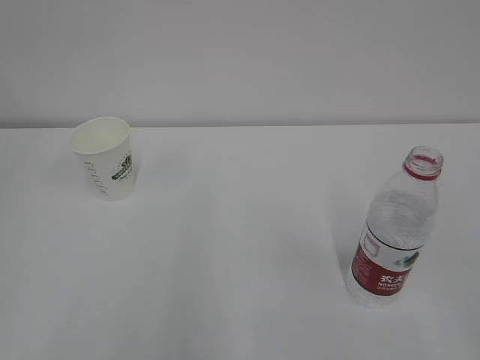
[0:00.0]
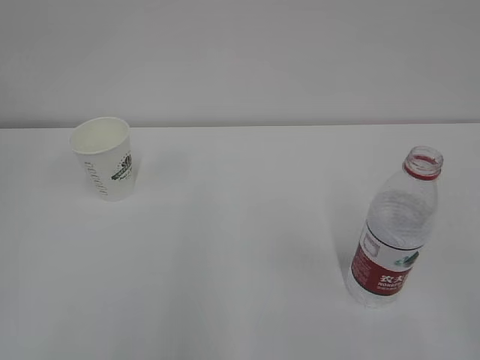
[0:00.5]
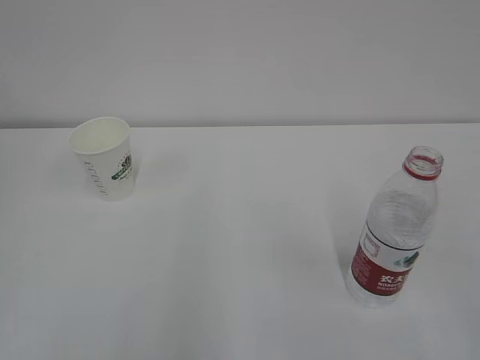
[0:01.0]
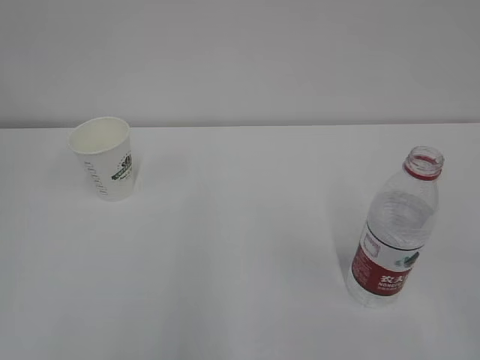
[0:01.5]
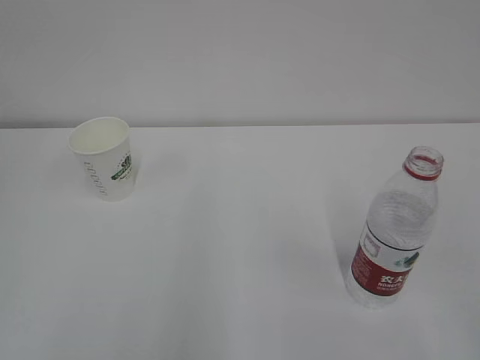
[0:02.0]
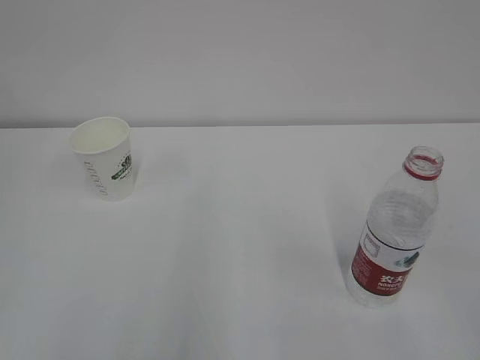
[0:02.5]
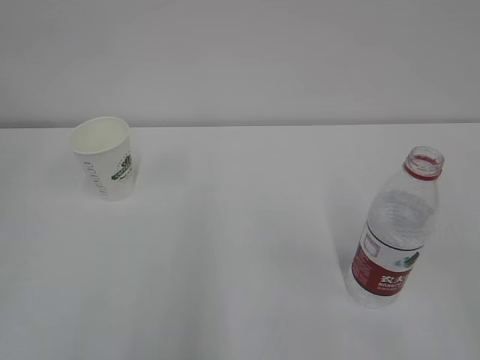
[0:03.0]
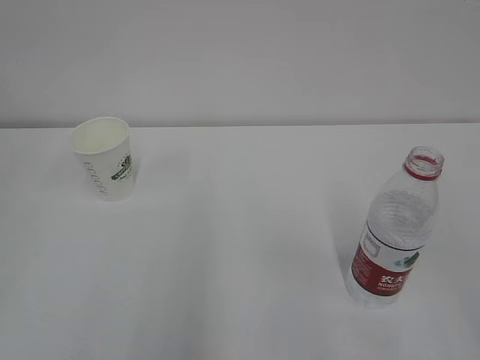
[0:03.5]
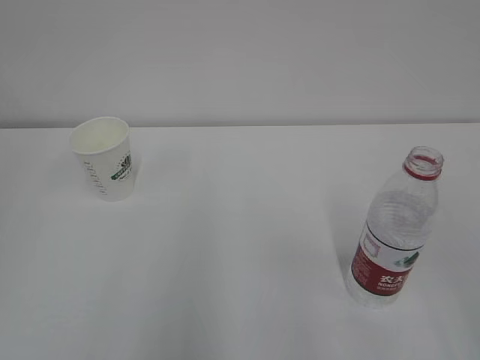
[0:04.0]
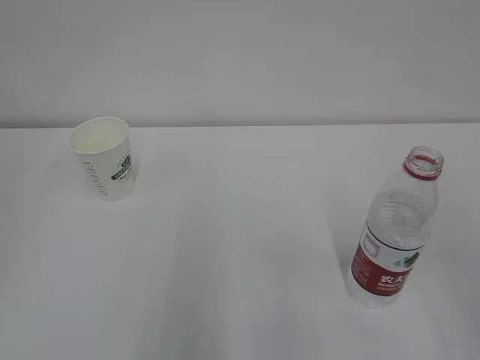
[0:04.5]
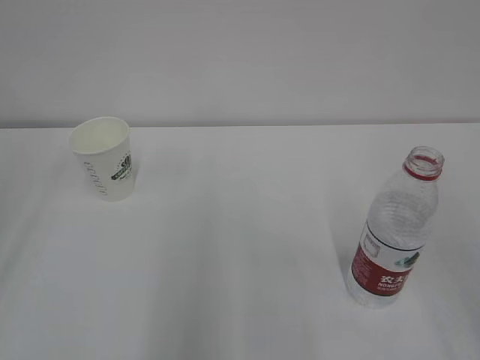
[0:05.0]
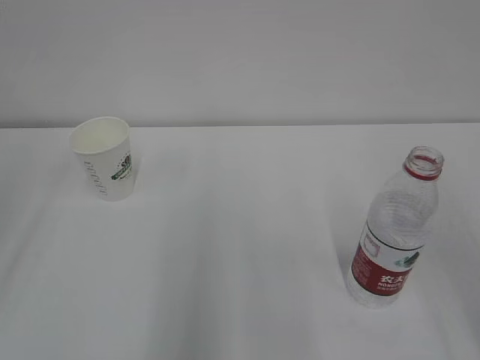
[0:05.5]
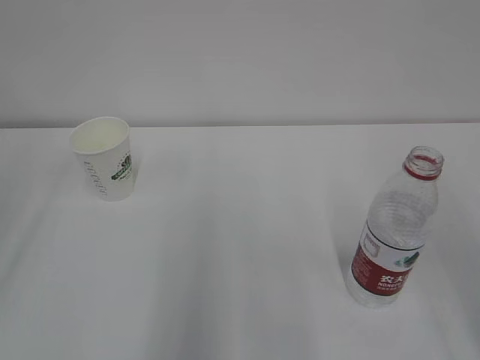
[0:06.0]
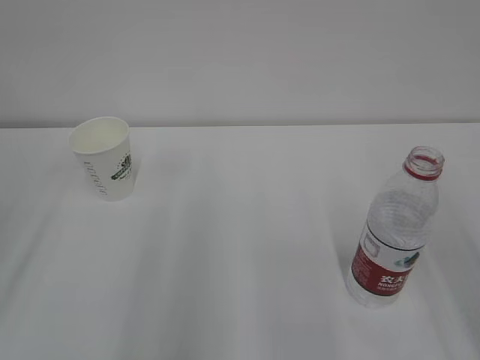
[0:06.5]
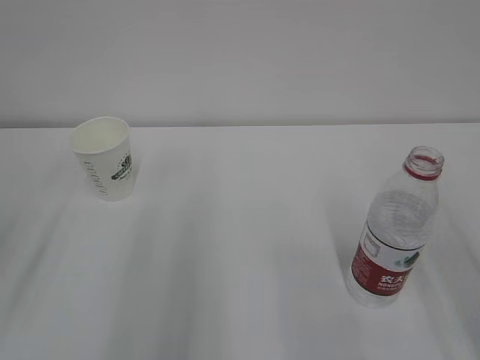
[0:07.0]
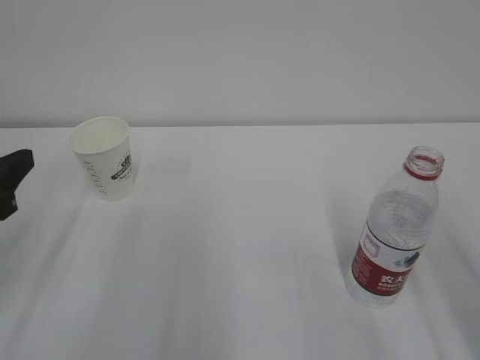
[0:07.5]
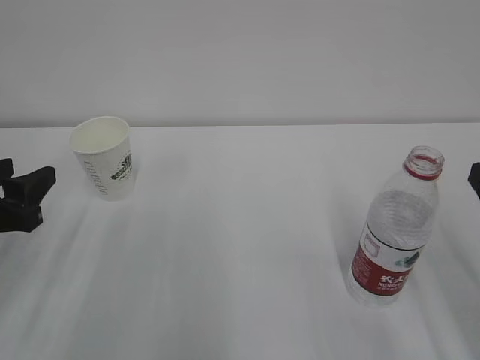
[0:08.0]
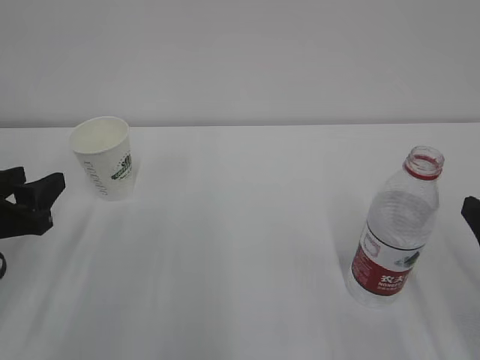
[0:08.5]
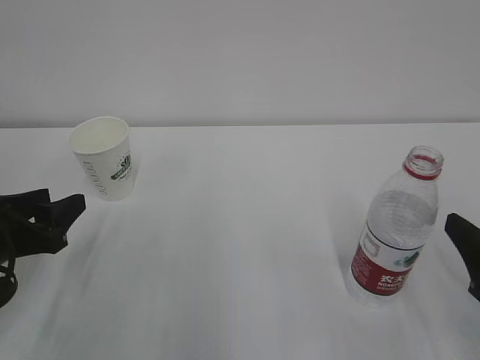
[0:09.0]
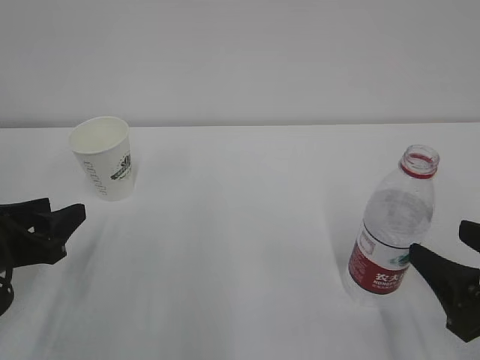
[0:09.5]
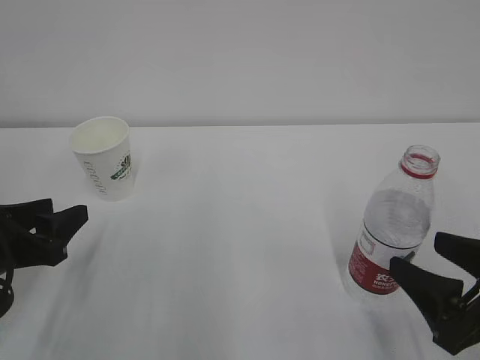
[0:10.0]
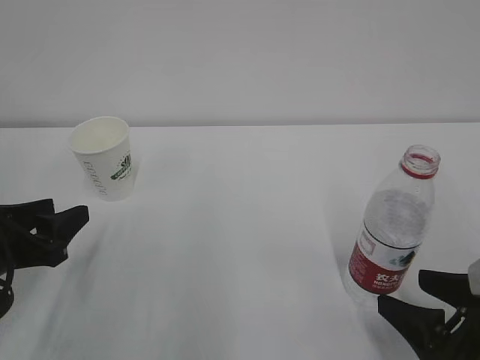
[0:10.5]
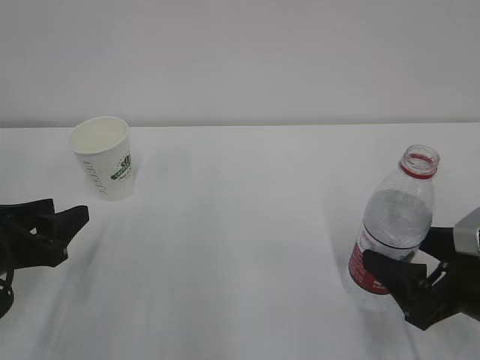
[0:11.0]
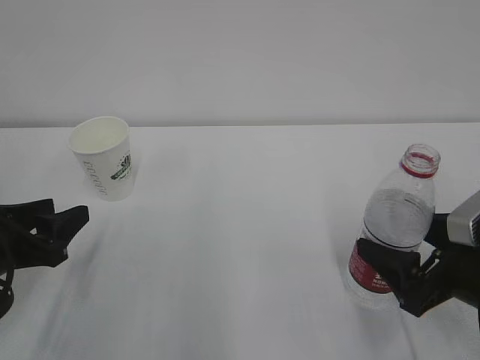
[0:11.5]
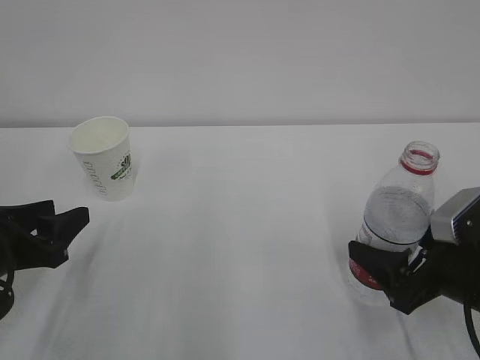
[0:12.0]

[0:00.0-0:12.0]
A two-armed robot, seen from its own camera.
0:06.0 to 0:08.0: The left gripper shifts some 20 cm downward and forward.
0:08.0 to 0:10.0: The right gripper travels downward by some 5 cm.
0:10.0 to 0:12.0: The right gripper heads forward, covering some 5 cm.

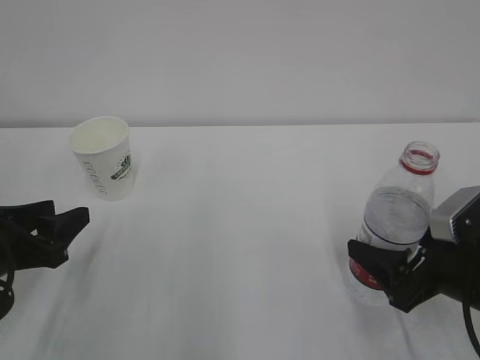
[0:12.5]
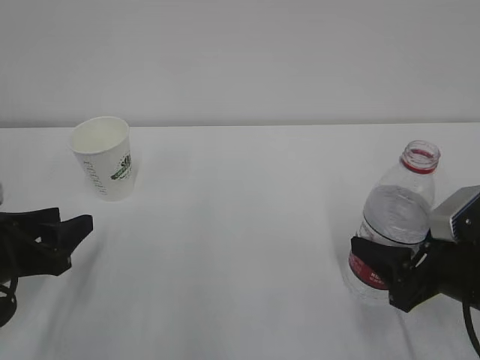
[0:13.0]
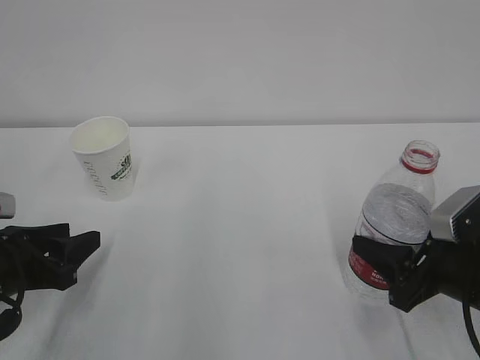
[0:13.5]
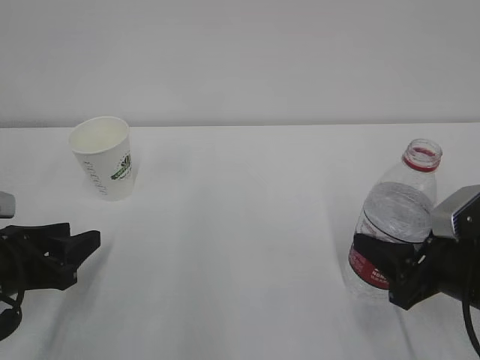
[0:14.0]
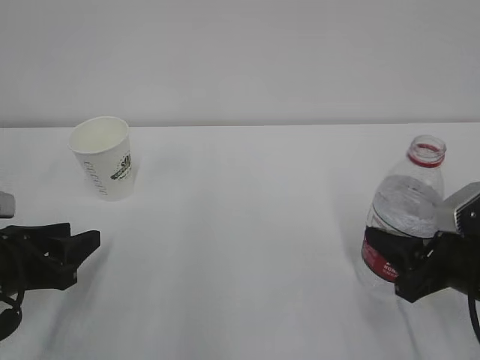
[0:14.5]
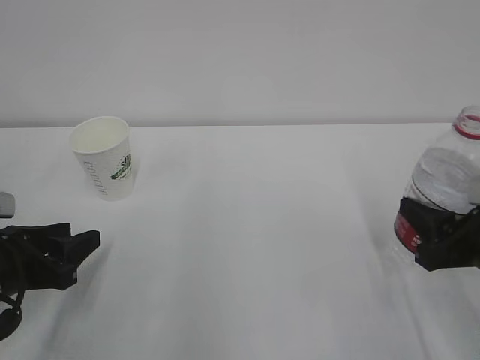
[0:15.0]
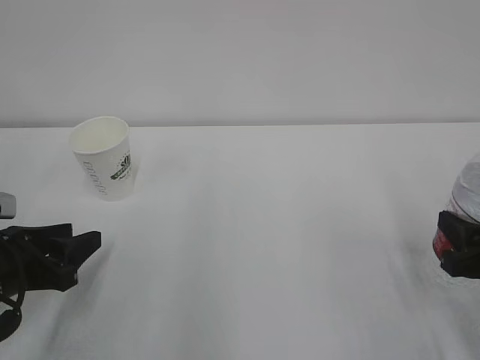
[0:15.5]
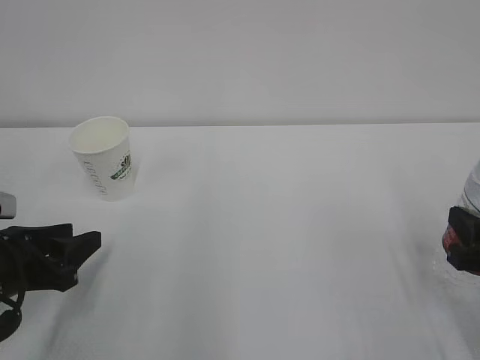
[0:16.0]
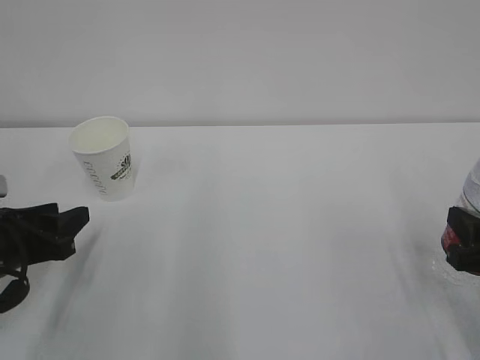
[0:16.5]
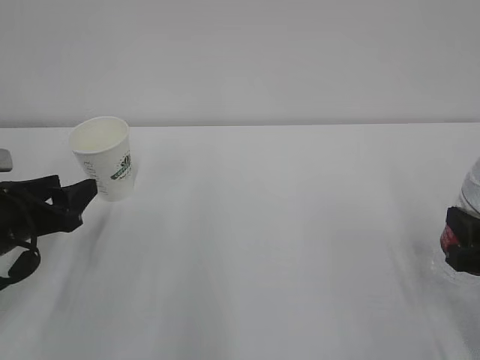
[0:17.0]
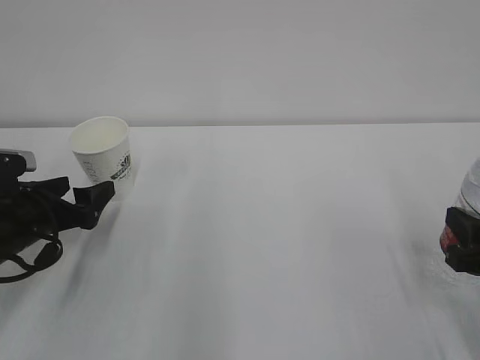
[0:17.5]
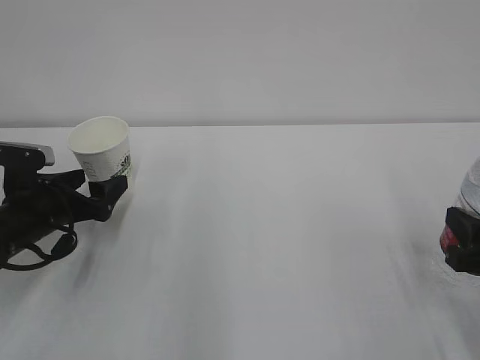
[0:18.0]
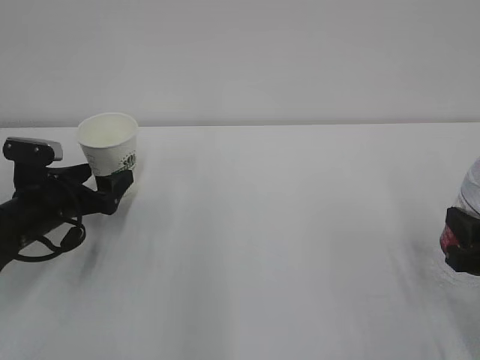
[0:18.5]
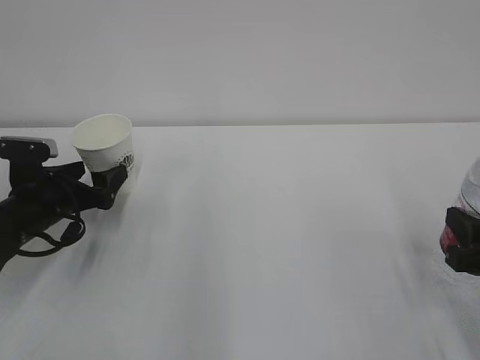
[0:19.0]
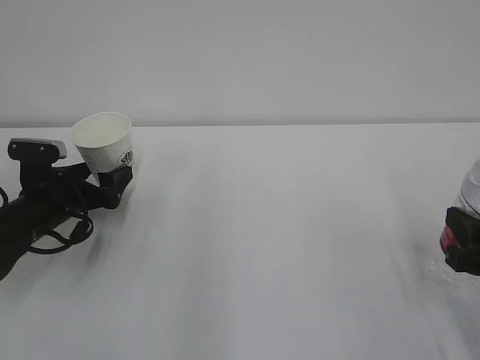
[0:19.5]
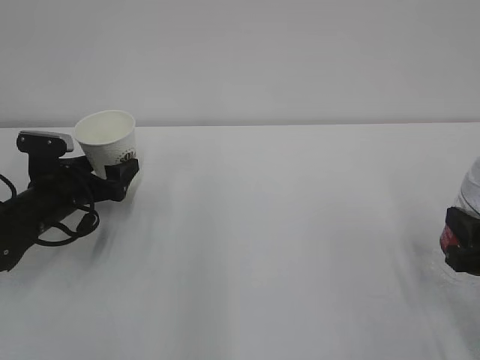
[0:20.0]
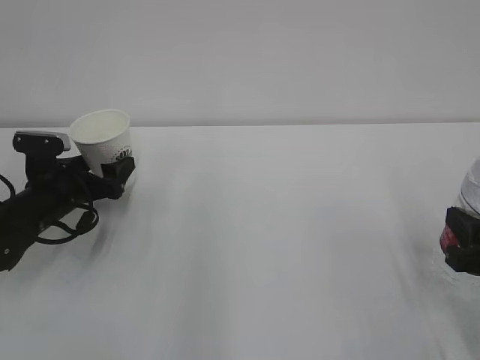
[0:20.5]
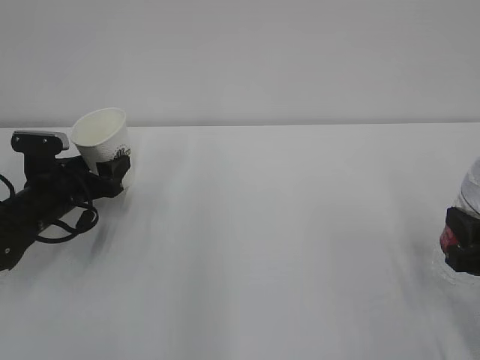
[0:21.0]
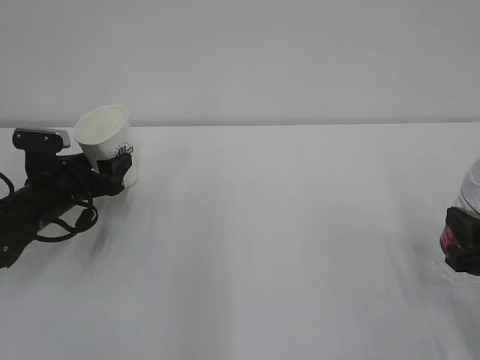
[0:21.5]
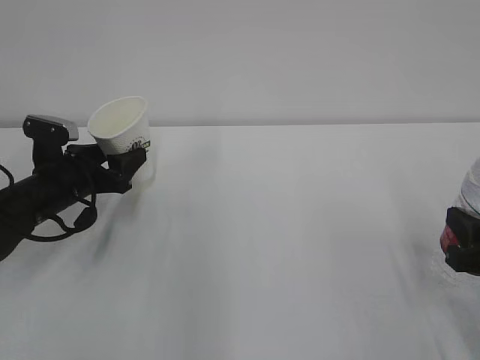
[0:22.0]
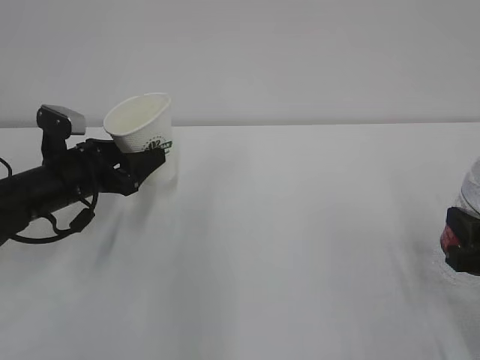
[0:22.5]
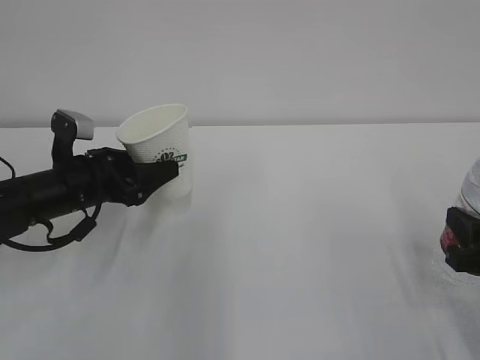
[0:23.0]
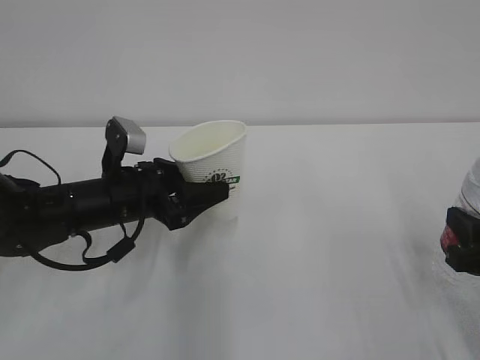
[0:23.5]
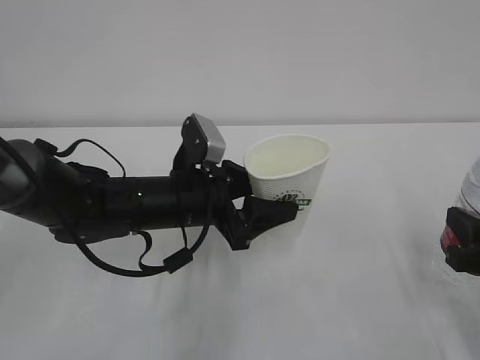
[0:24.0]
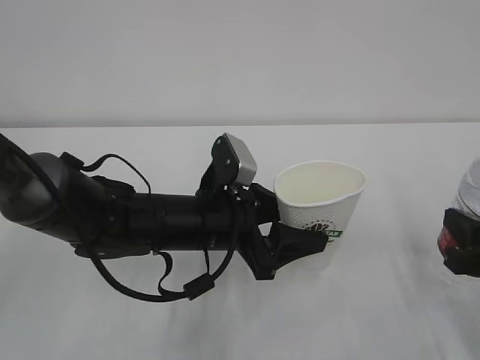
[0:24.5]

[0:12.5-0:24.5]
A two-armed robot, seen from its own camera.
0:12.5 to 0:14.5: The right gripper closes its fingers.
0:16.5 to 0:18.5: The left gripper shifts roughly 10 cm forward, and opens its fingers.
0:18.5 to 0:20.5: There are only small adjustments of the grippers.
0:20.5 to 0:22.5: The left gripper moves roughly 5 cm, and closes up.
0:22.5 to 0:24.5: The left gripper goes roughly 20 cm to the right and backward.

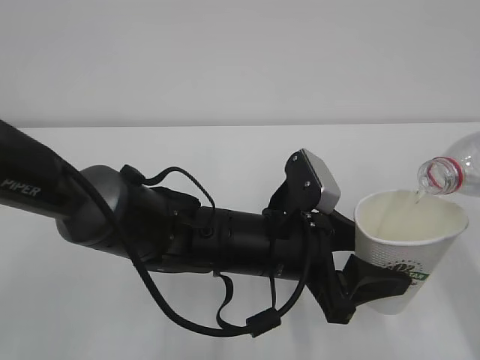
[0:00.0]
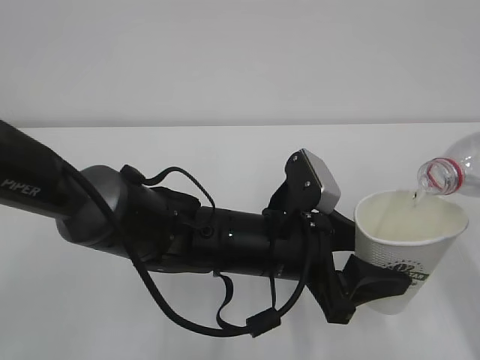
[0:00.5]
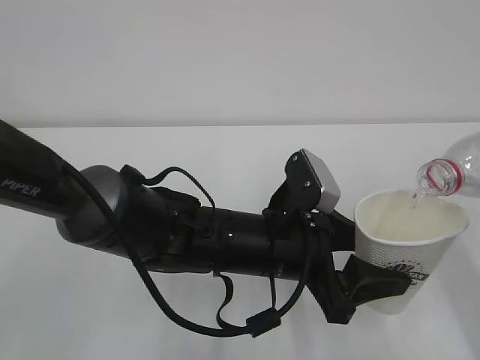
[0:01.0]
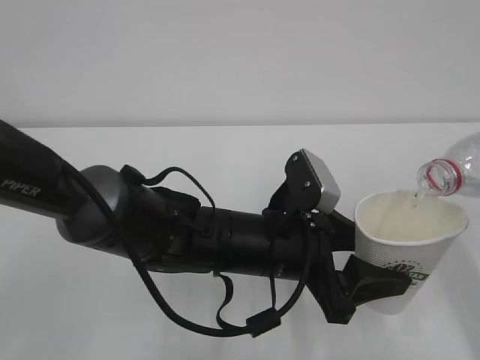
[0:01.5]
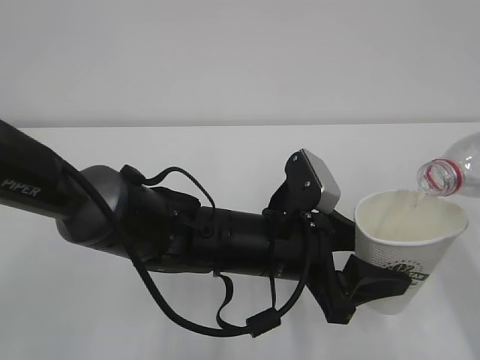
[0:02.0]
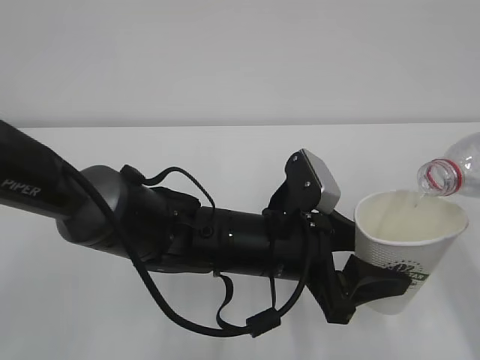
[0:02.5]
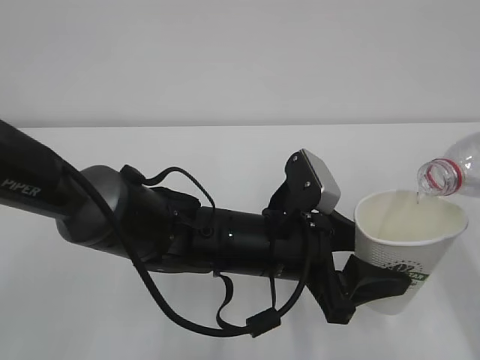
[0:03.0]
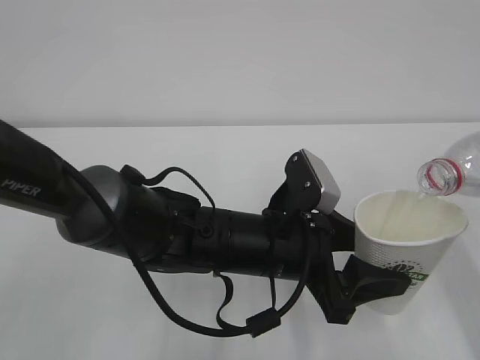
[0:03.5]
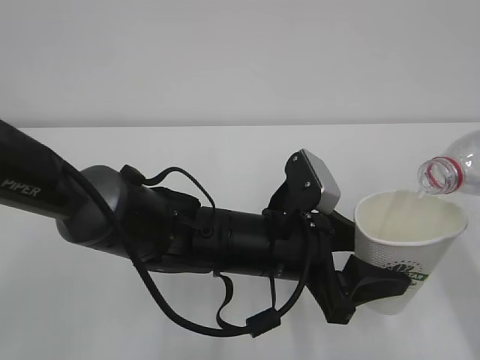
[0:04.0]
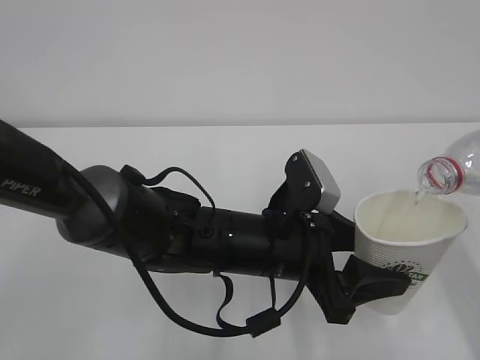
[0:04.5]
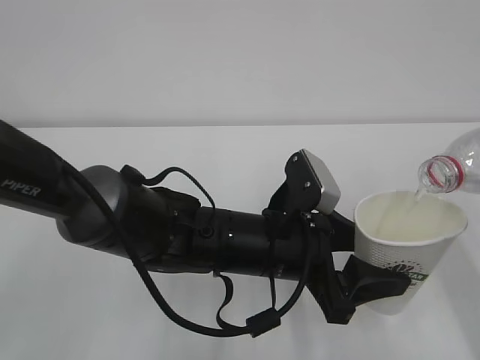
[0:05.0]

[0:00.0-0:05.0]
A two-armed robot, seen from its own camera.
0:00.0 to 0:05.0: Neither gripper changes place.
